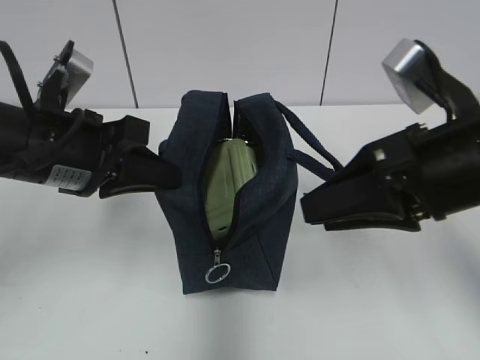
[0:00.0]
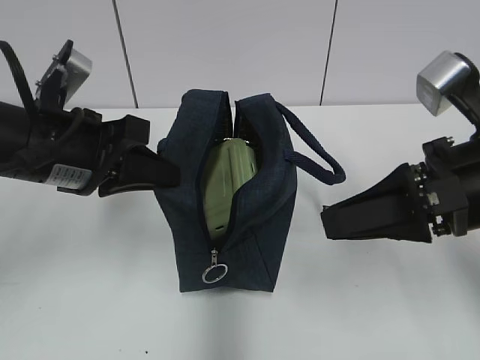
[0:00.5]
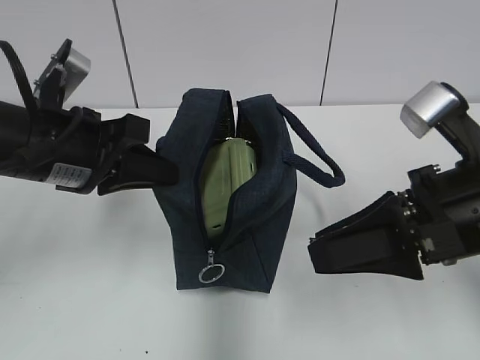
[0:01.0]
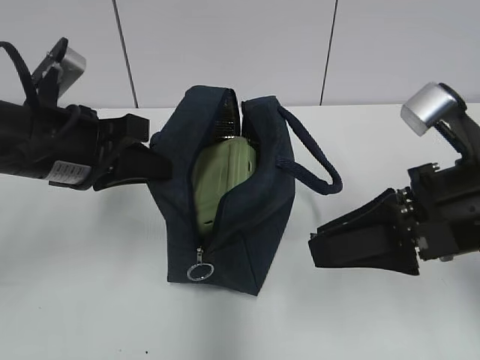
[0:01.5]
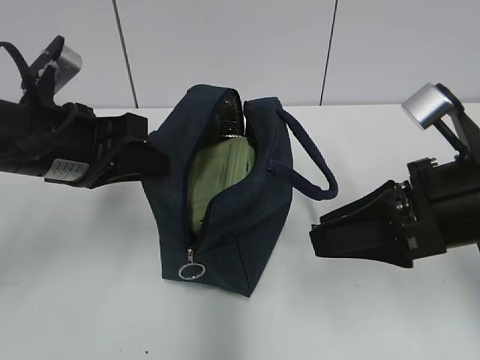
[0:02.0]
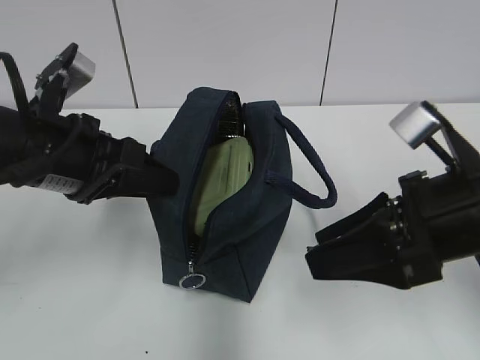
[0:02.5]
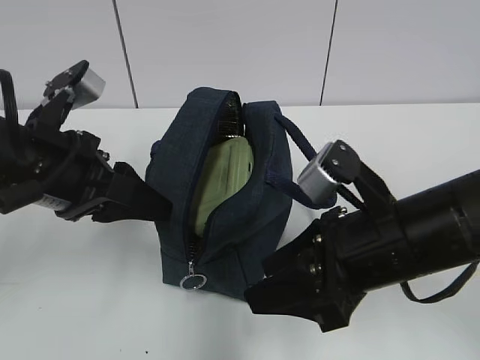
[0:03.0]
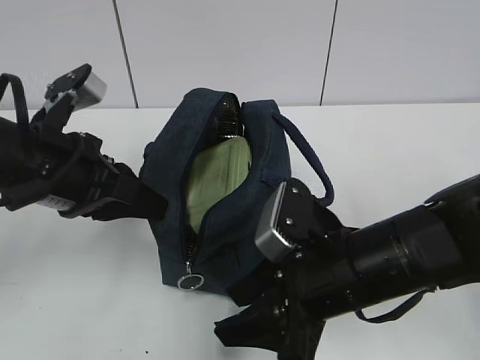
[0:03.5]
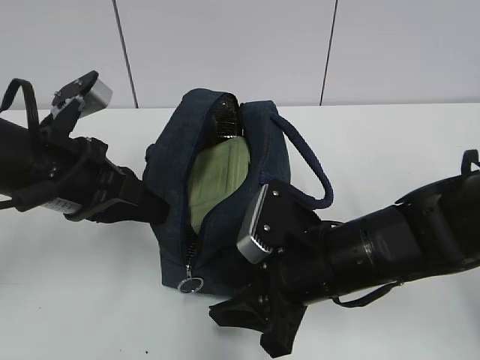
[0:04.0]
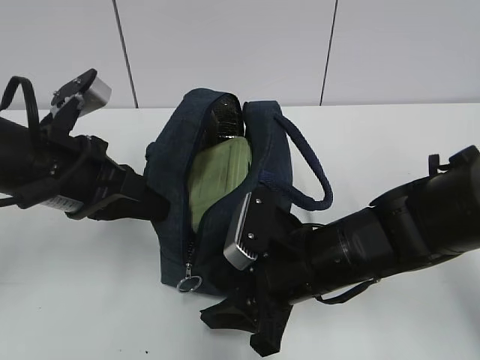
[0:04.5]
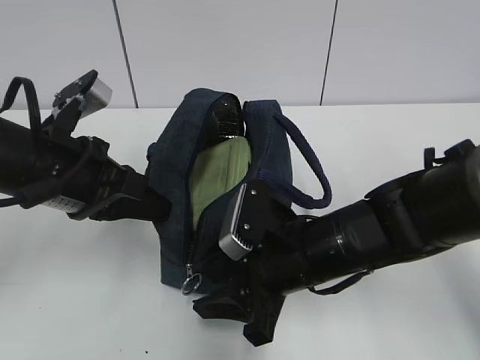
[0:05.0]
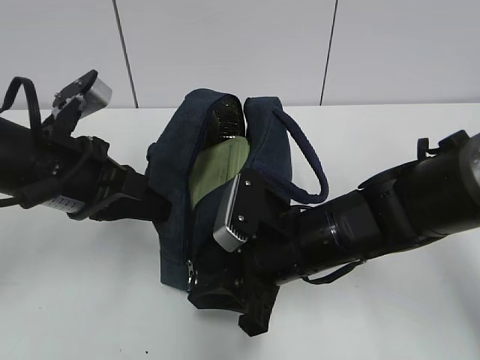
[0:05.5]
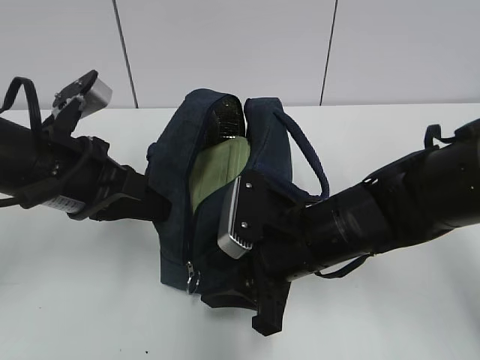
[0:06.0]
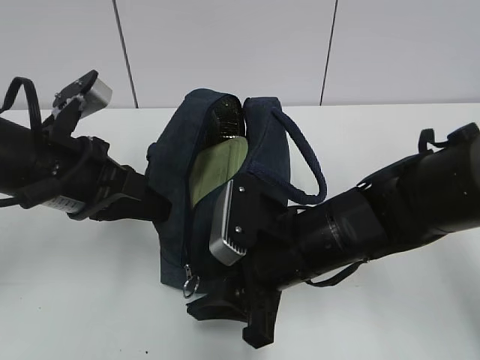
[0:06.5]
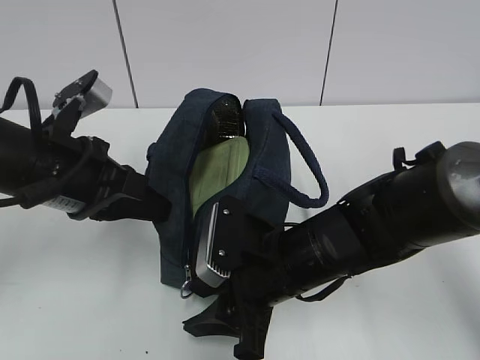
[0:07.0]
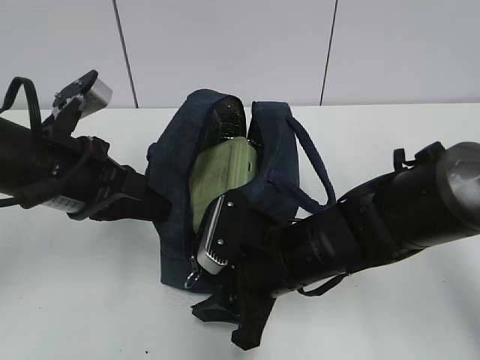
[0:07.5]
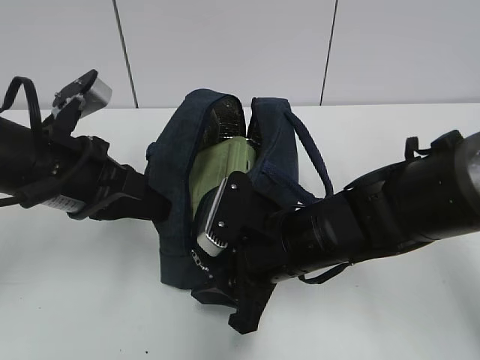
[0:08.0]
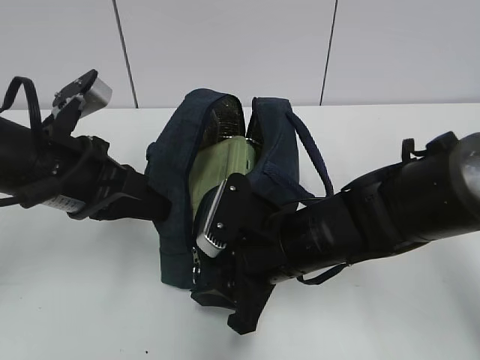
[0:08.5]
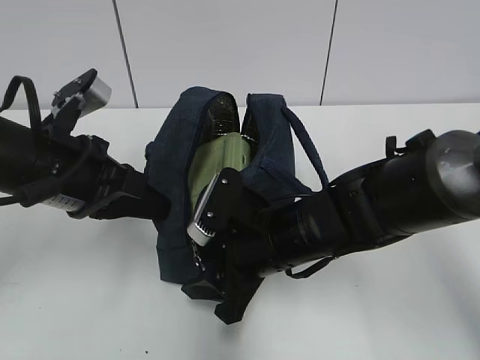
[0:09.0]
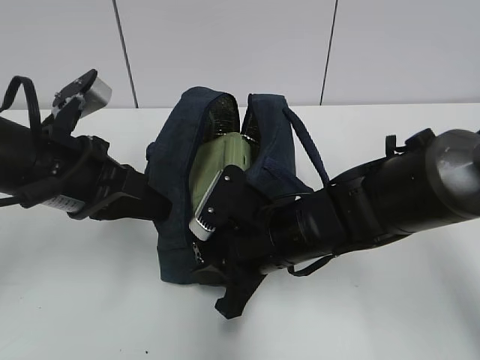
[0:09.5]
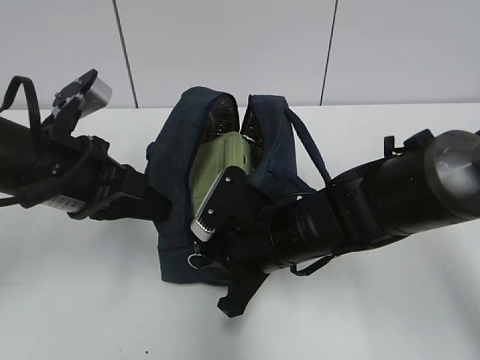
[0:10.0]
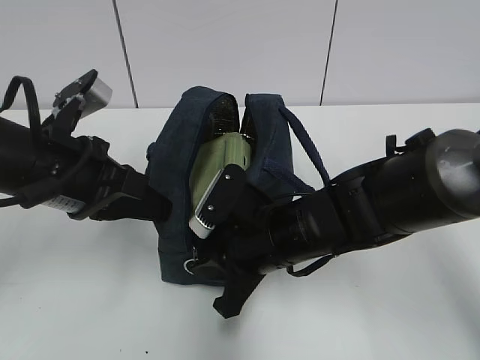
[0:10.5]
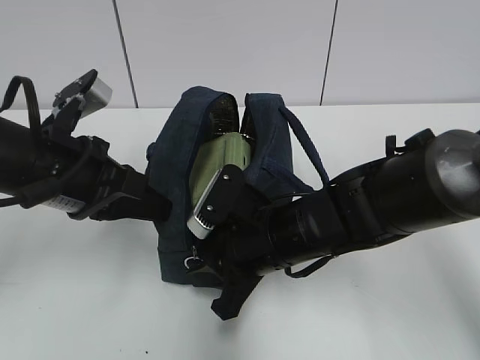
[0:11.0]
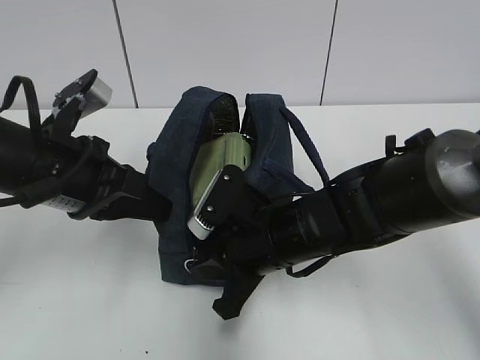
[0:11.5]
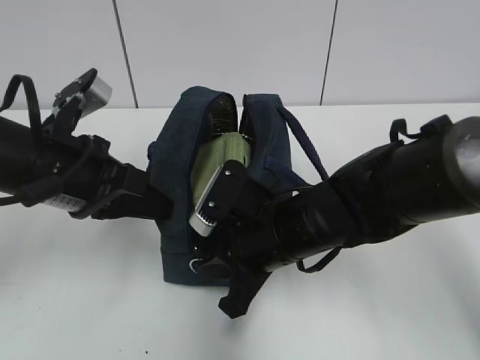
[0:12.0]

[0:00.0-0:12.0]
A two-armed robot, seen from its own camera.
0:02.0 to 0:04.0: The right gripper shifts approximately 15 cm to the left and downward; the left gripper opens and closes again.
0:04.0 to 0:08.0: The grippers stay close to where they were, moving slightly.
0:08.0 to 0:10.0: The right gripper closes.
0:10.0 to 0:12.0: The grippers stay close to where they were, moving slightly.

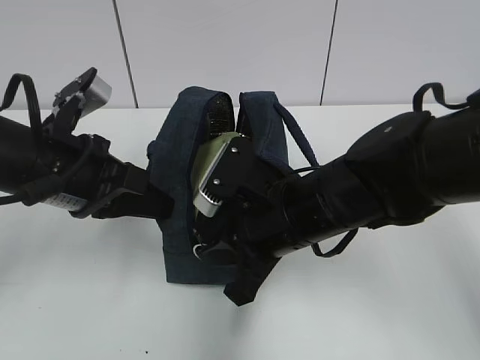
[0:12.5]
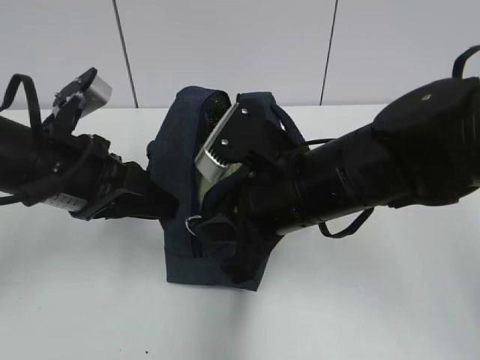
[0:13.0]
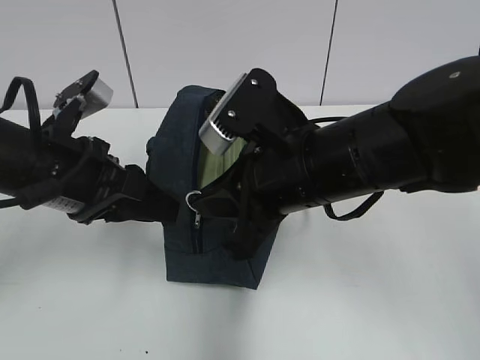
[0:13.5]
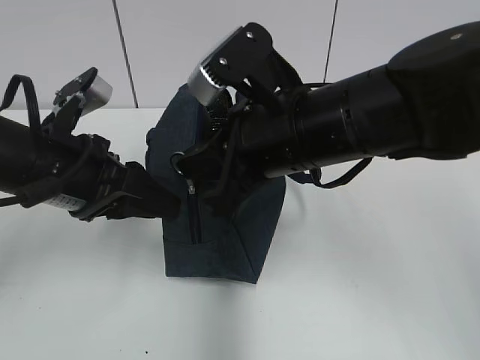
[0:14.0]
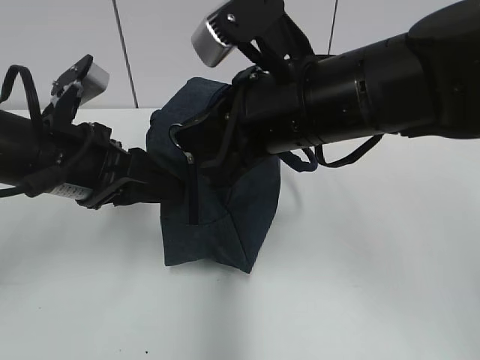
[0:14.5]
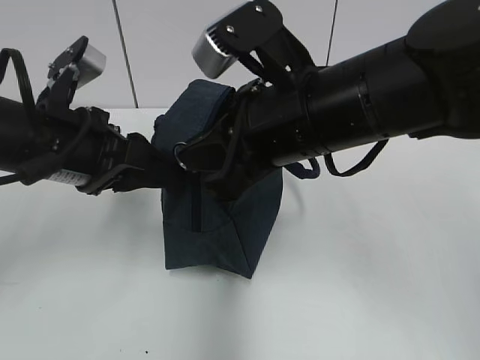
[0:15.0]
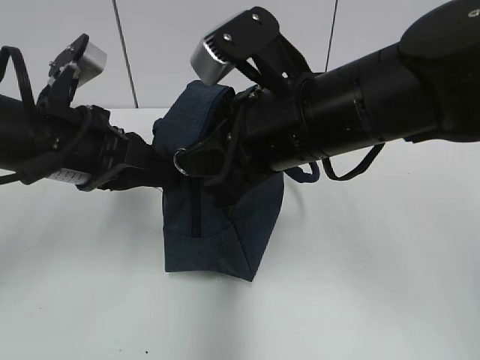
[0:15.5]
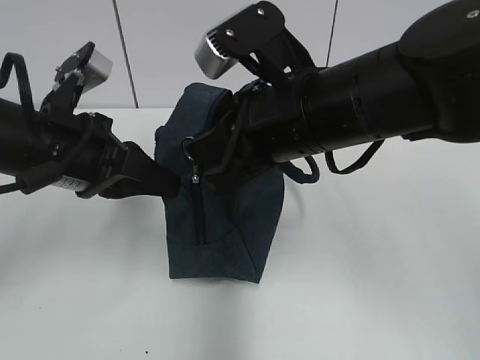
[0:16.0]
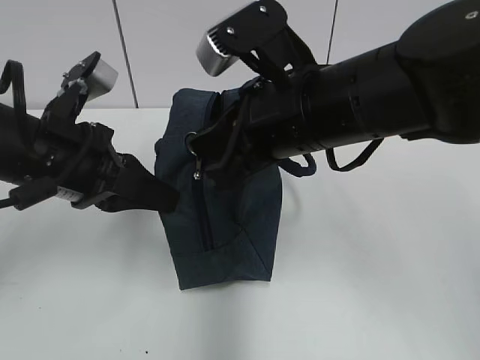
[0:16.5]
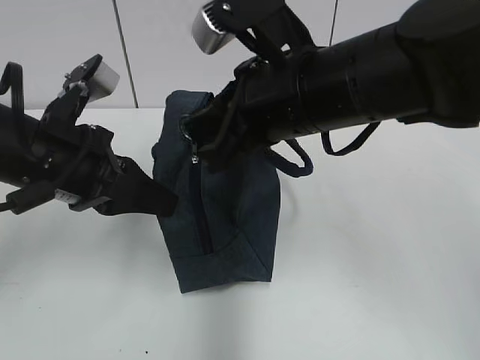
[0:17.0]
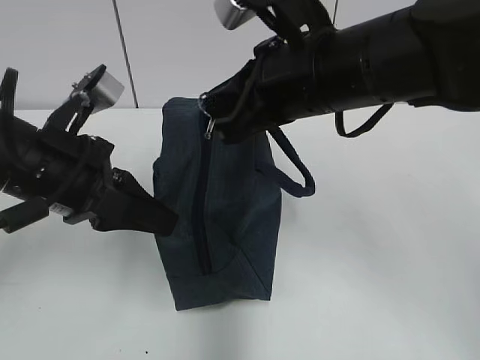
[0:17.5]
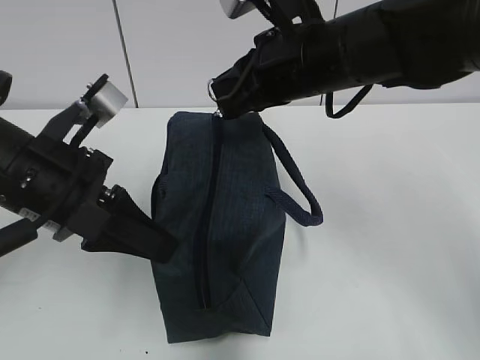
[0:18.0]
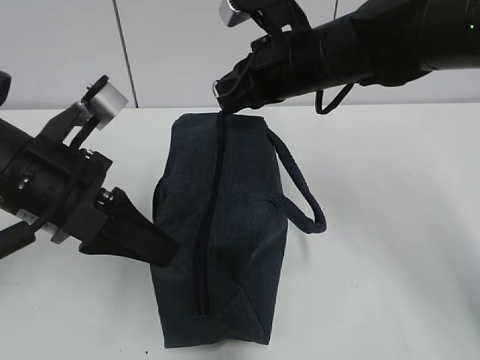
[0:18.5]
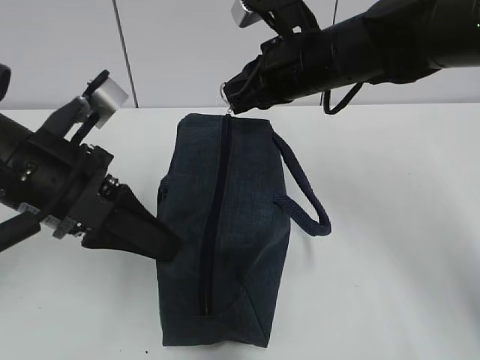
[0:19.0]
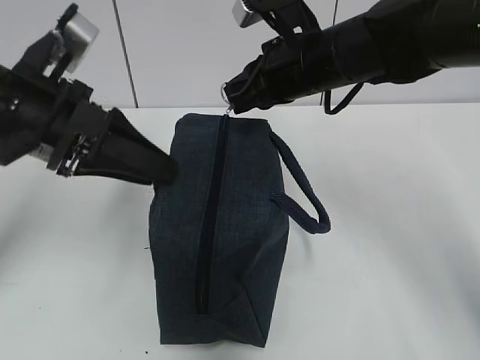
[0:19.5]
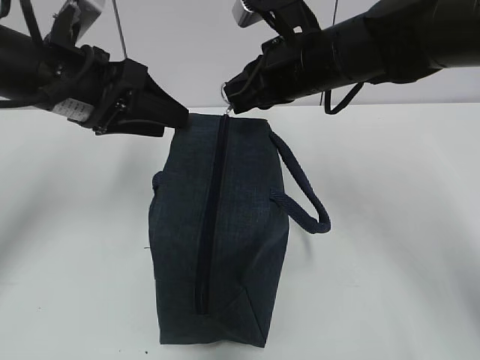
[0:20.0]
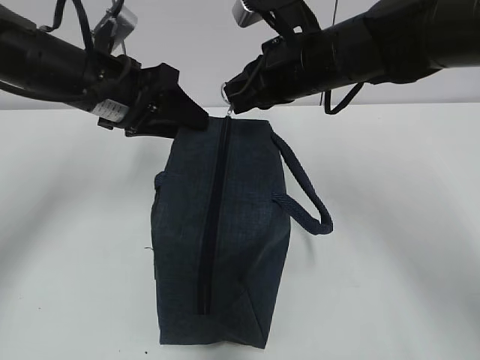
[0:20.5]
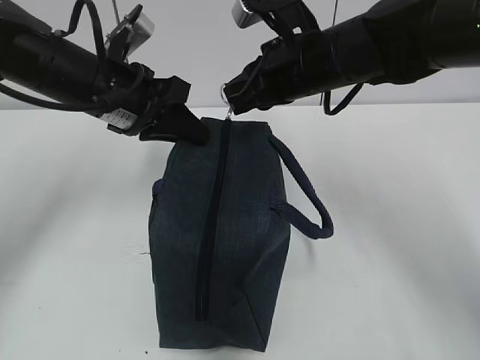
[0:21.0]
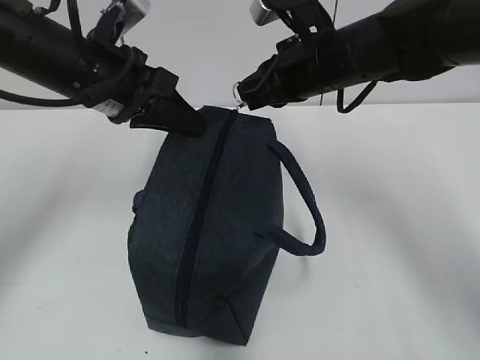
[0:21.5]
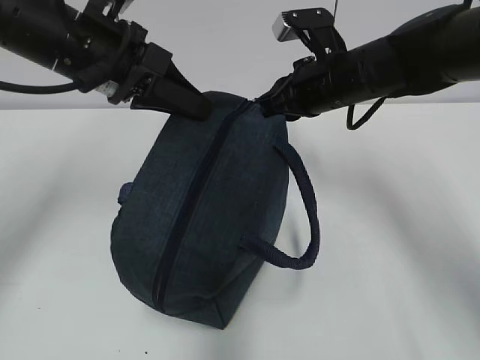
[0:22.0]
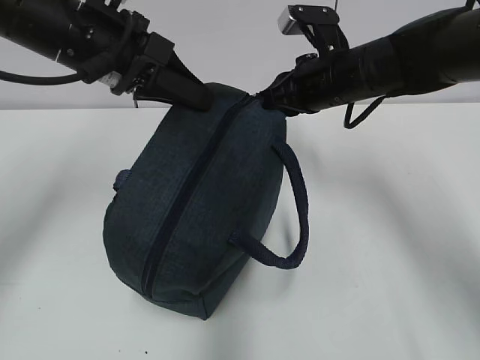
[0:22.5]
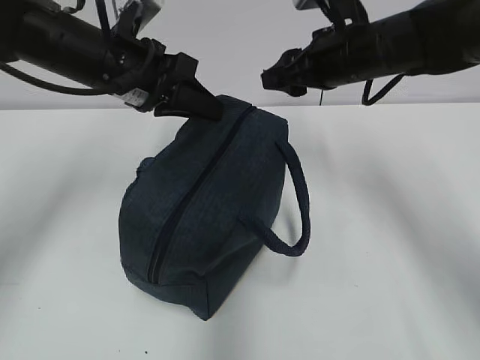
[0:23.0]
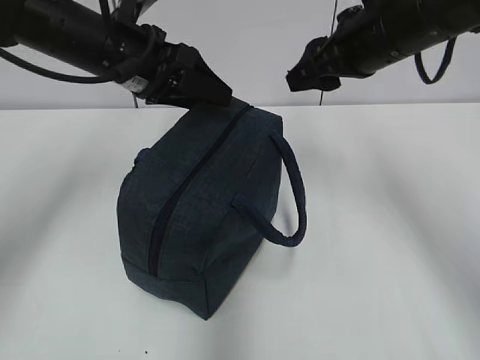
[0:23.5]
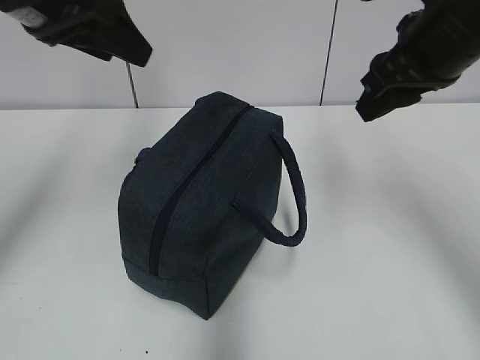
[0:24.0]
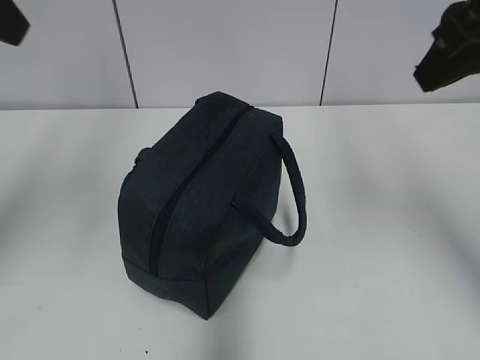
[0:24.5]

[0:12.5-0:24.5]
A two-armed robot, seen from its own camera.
Step, 0:12.5 to 0:19.0: Grab the lunch bag with your left hand.
Step, 0:19.5 to 0:22.5: Pull the zipper with your right hand.
0:12.5 to 0:14.5: The left gripper opens up. Meanwhile the right gripper goes roughly 10 cm upward.
0:14.5 to 0:16.5: The left gripper closes its fingers.
0:16.5 to 0:18.5: The right gripper goes roughly 10 cm forward.
0:18.5 to 0:20.5: The left gripper goes about 15 cm forward, and opens up.
0:20.5 to 0:22.5: The right gripper changes place by about 5 cm. The left gripper travels upward by about 5 cm, and closes up.
0:22.5 to 0:24.5: The right gripper goes roughly 25 cm backward, upward and to the right, and opens up; the left gripper shifts about 20 cm upward, backward and to the left, and opens.

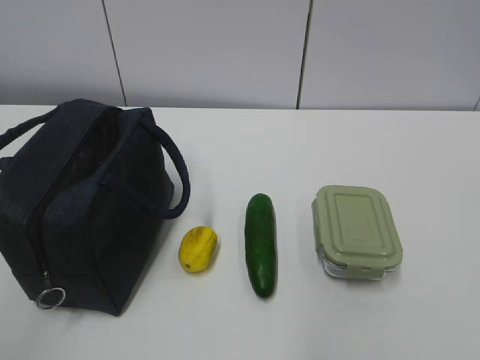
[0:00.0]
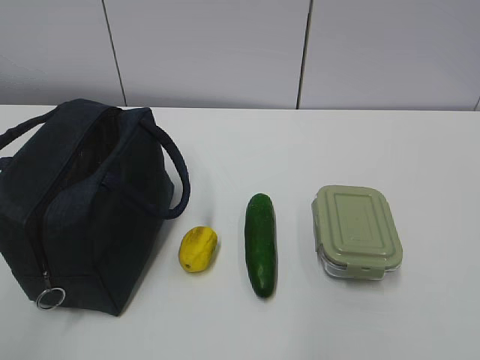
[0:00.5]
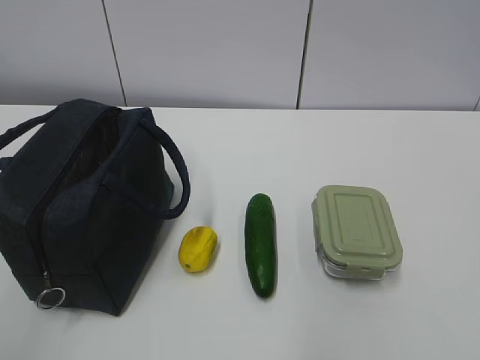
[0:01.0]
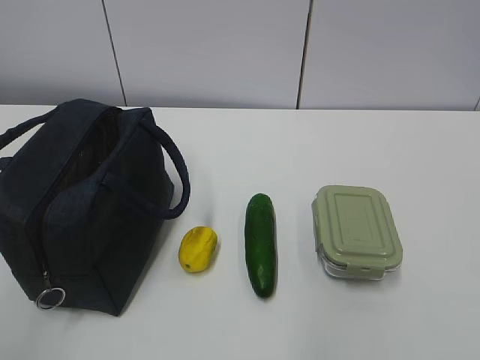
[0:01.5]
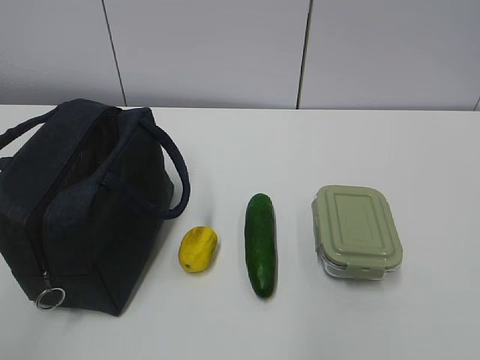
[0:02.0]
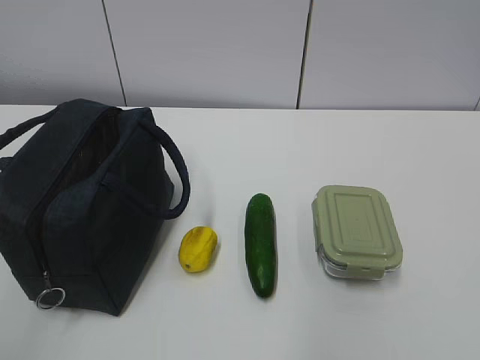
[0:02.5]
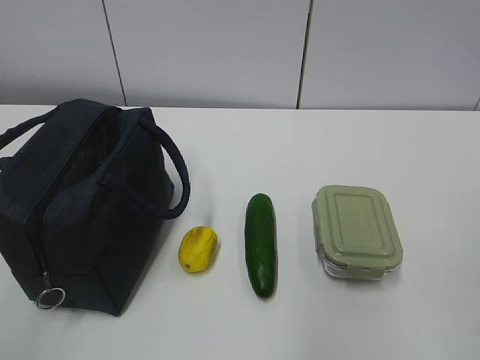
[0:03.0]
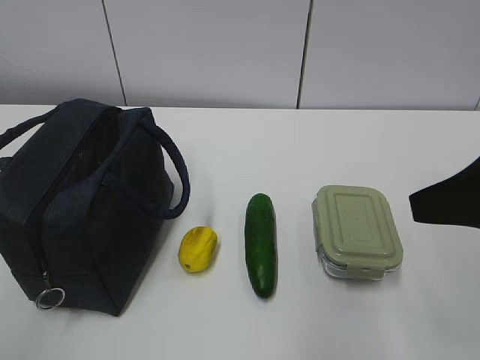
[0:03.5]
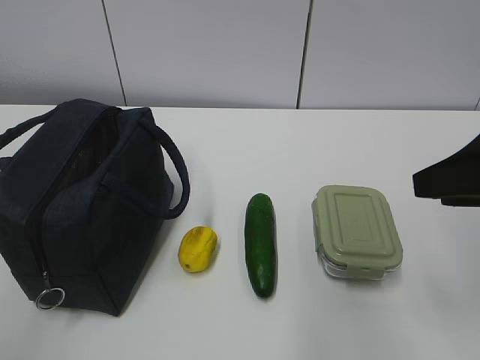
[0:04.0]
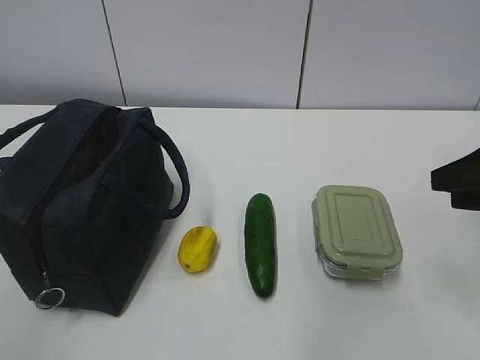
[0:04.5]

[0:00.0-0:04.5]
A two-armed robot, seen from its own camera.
0:02.0 to 0:04.5: The right gripper travels forward by approximately 25 cm.
